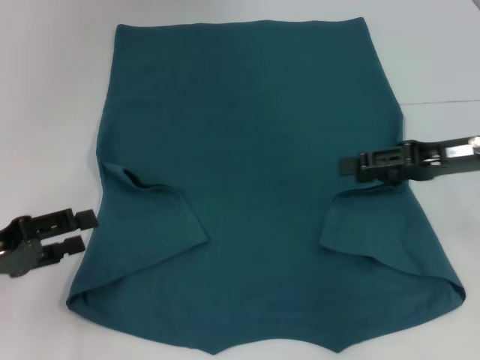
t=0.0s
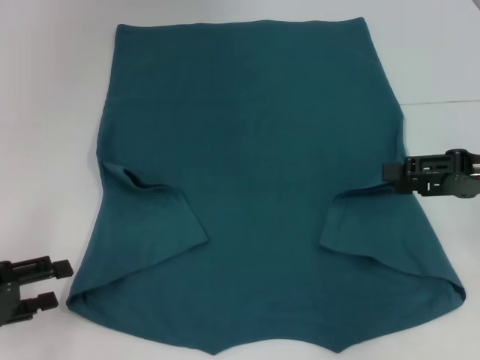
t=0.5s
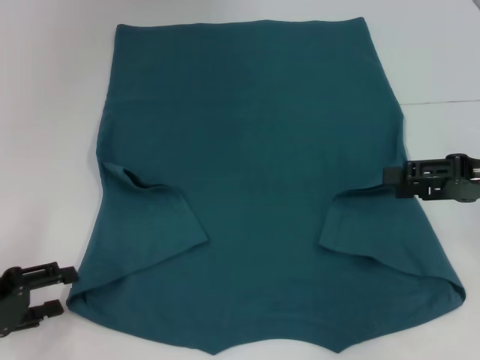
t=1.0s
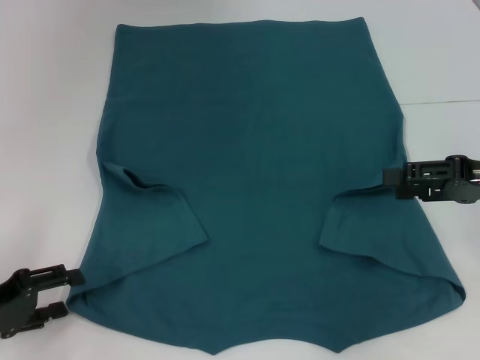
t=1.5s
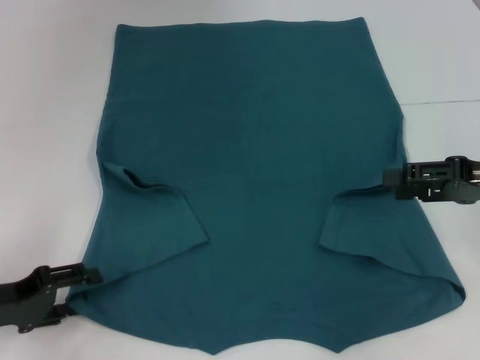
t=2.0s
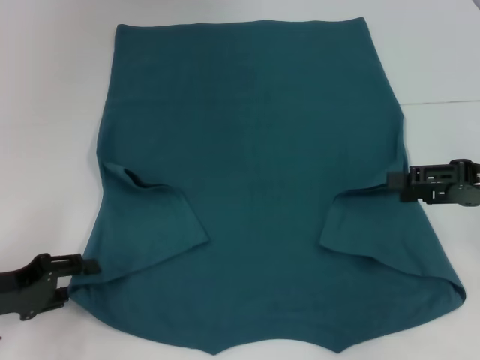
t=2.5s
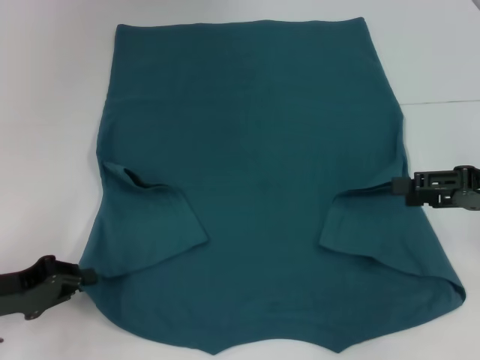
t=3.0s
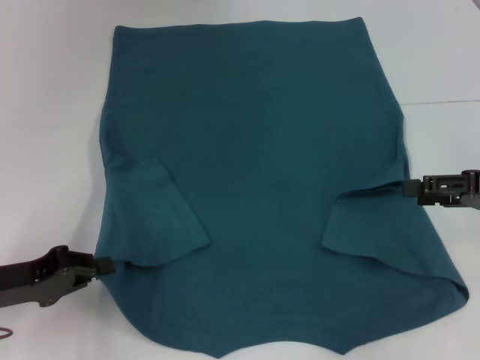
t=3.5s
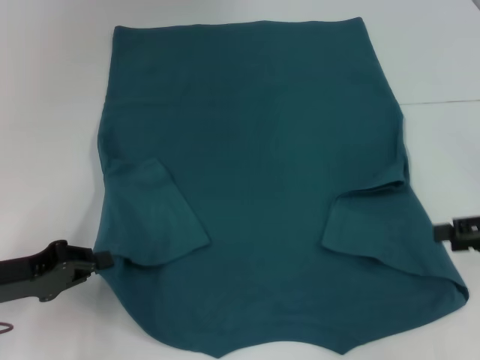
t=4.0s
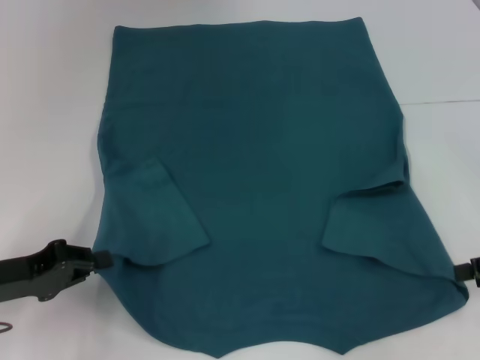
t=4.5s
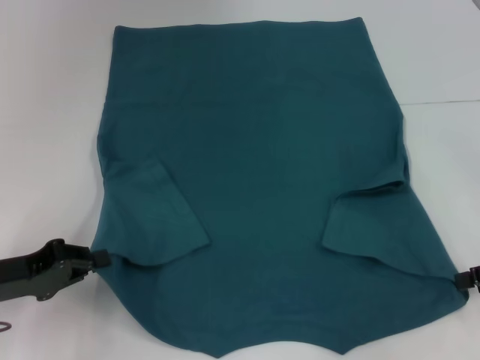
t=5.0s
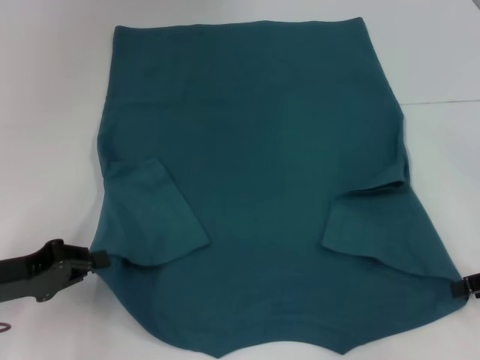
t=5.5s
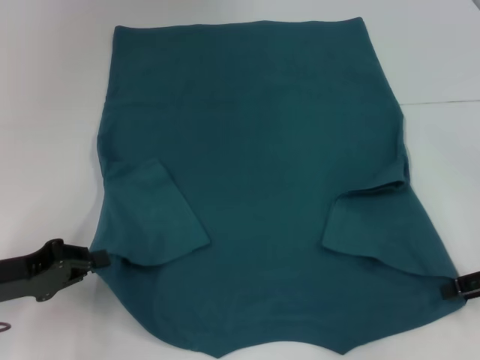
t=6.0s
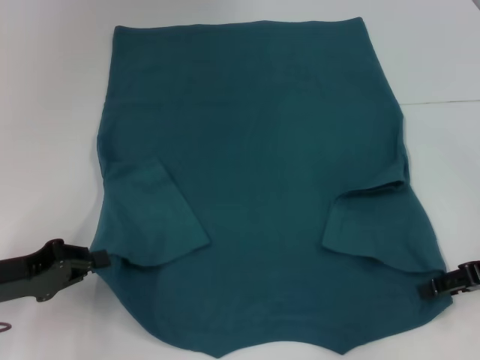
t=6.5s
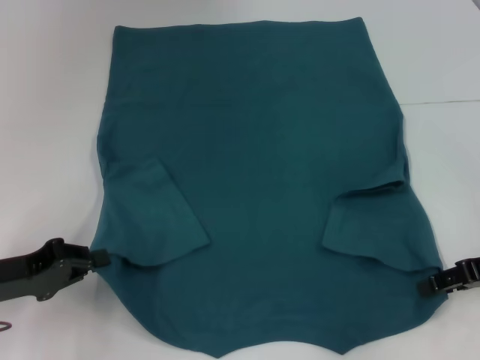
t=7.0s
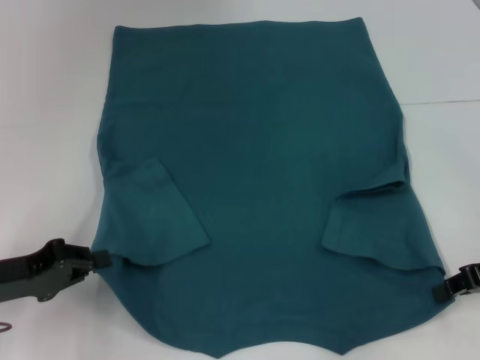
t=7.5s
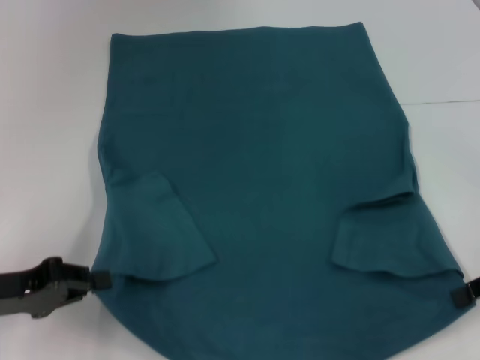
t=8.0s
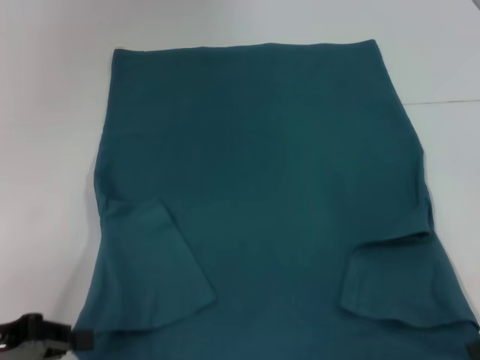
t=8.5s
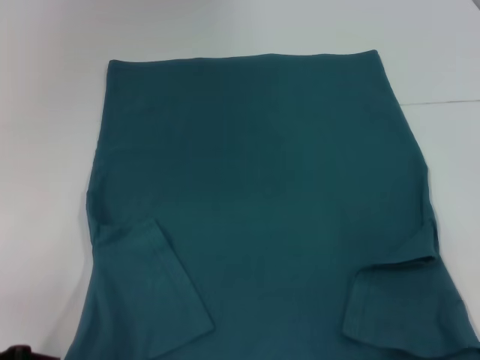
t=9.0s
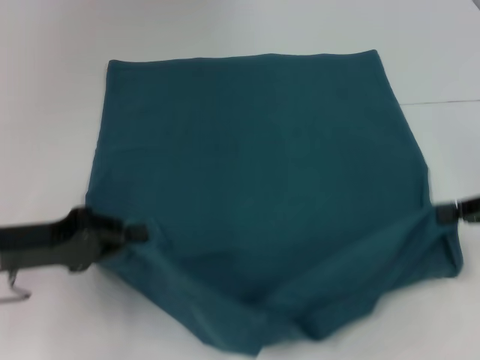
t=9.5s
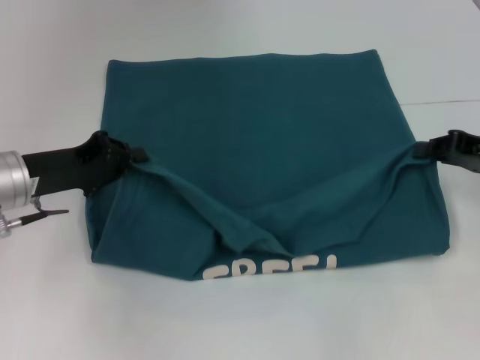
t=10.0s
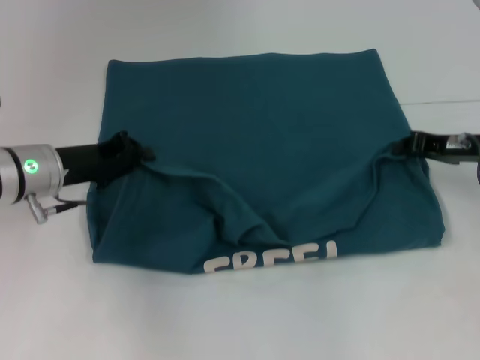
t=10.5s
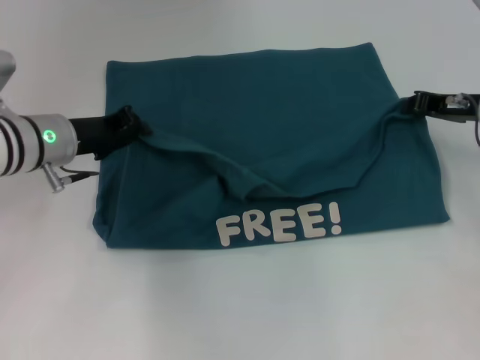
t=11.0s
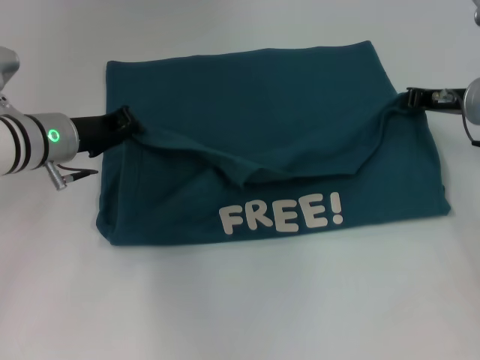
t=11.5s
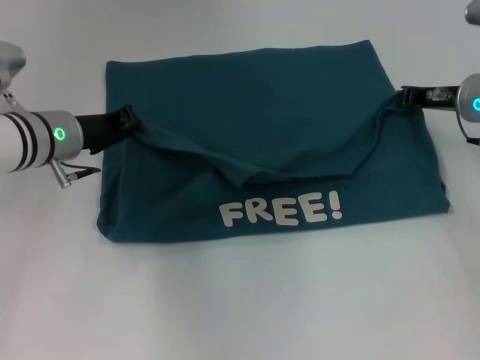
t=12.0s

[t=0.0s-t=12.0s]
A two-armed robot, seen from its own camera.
Step, t=0.0s to t=3.0s: Grab the bottom left corner with your left hand.
Step, t=3.5s to t=7.5s: Grab the bottom right corner with your right hand.
t=0.0s to t=2.0s: The right gripper changes place by some 5 cm.
t=2.0s to t=4.0s: The right gripper shifts by some 5 cm, while the left gripper closes.
t=4.0s to t=6.0s: The grippers make only small movements.
t=6.0s to t=8.0s: The right gripper closes its fingers.
t=8.0s to t=10.0s: The right gripper moves forward, roughly 5 cm, while the left gripper heads forward and to the right, covering some 10 cm.
t=10.0s to t=12.0s: The left gripper heads forward and to the right, covering roughly 10 cm. Meanwhile the right gripper heads forward and to the left, covering roughly 10 cm.

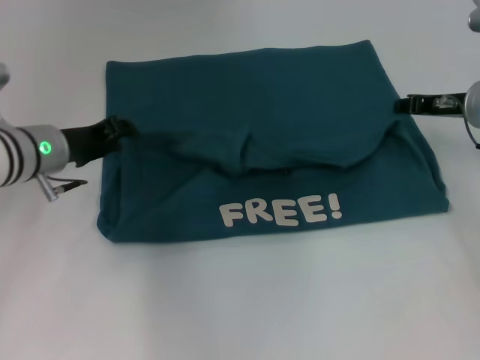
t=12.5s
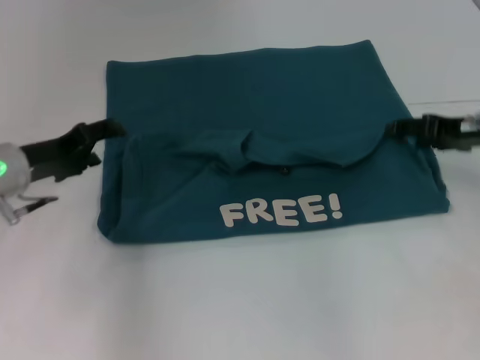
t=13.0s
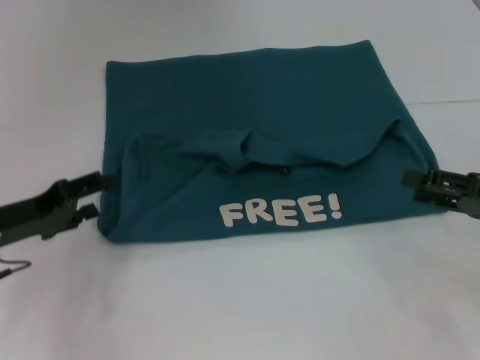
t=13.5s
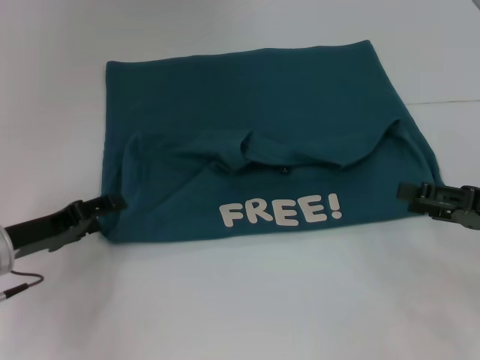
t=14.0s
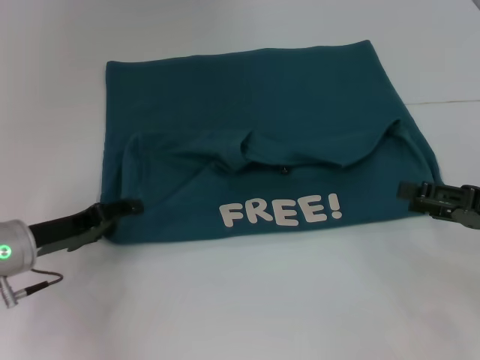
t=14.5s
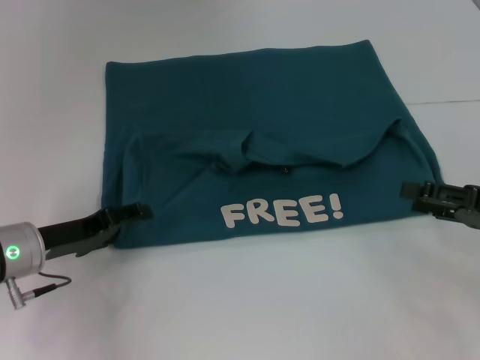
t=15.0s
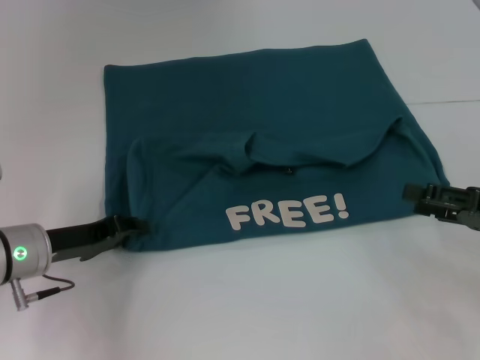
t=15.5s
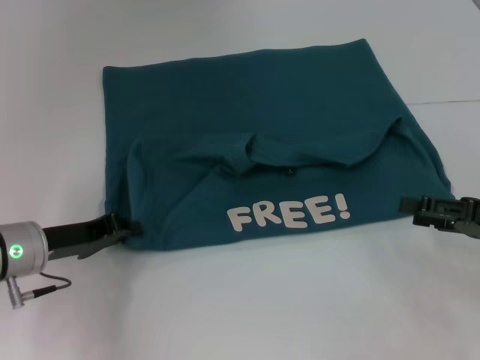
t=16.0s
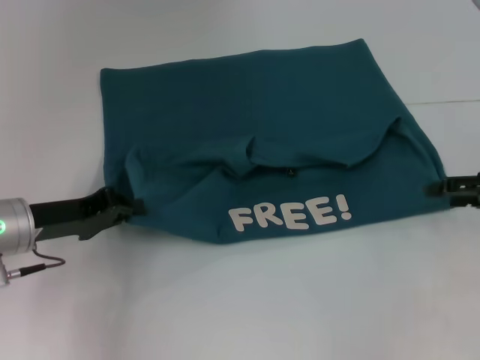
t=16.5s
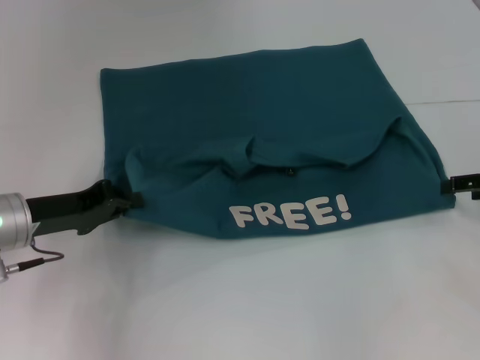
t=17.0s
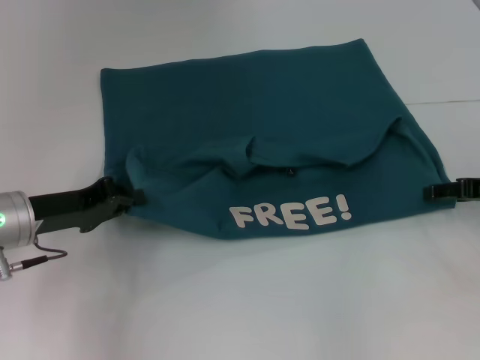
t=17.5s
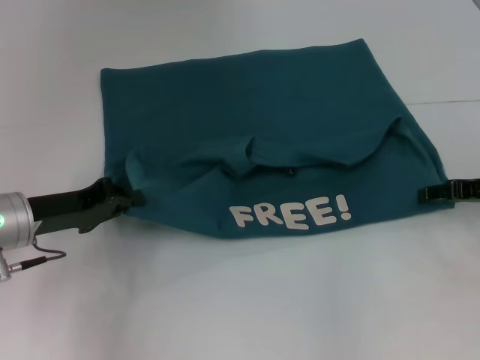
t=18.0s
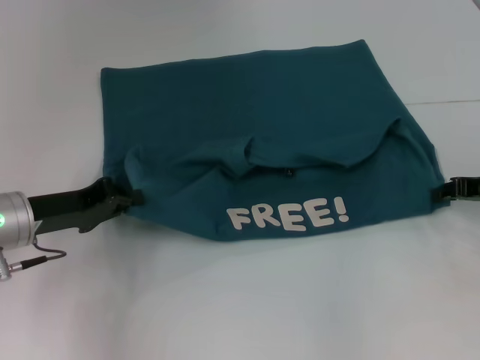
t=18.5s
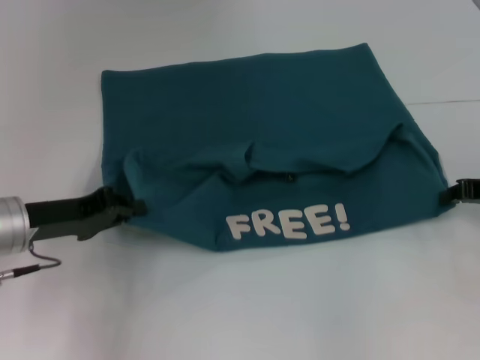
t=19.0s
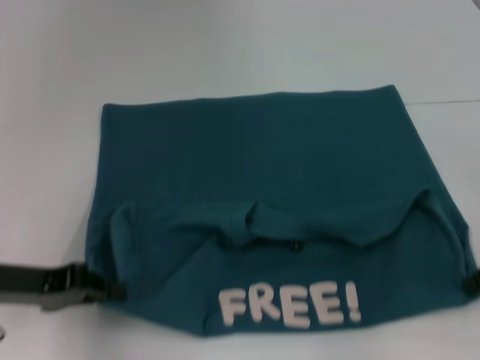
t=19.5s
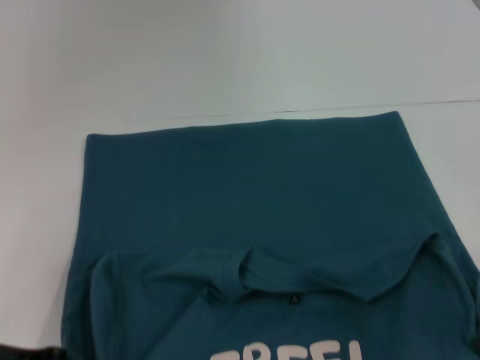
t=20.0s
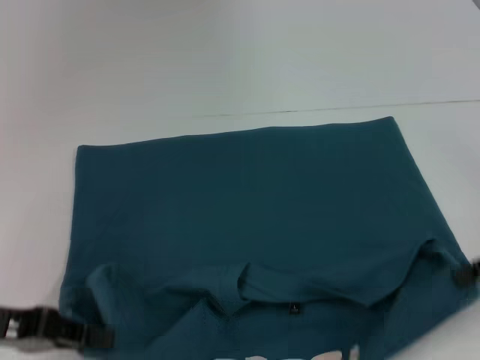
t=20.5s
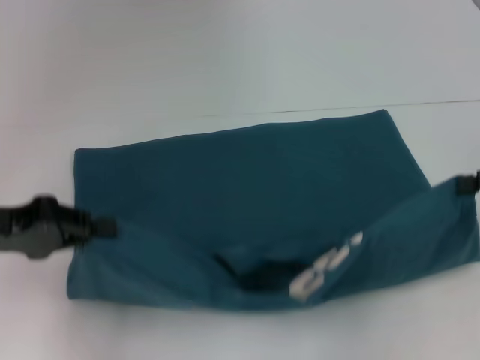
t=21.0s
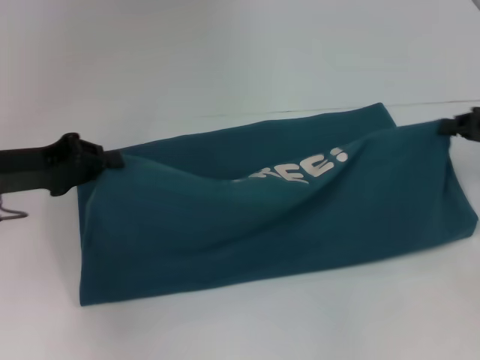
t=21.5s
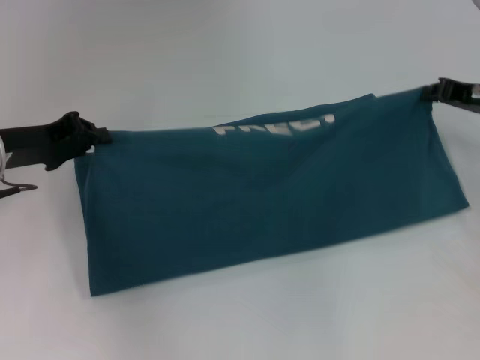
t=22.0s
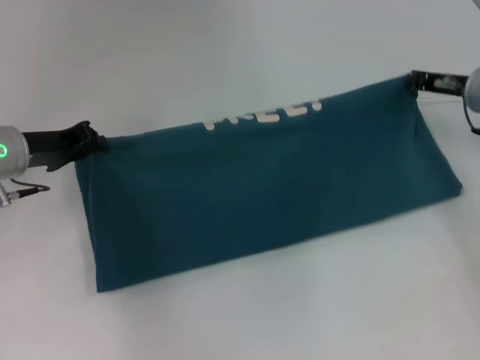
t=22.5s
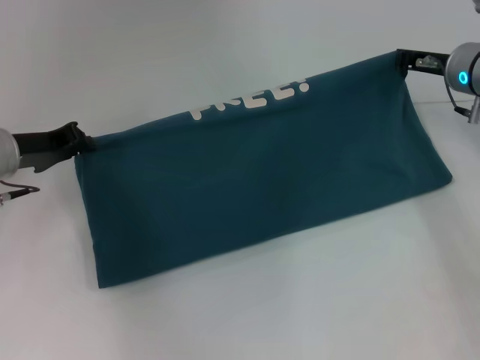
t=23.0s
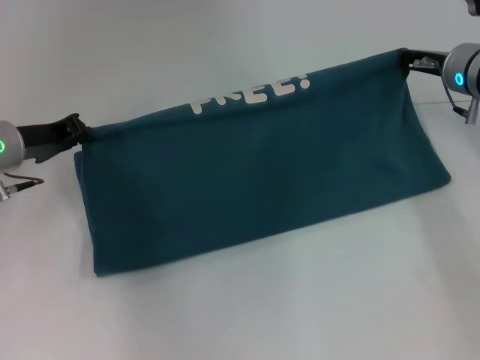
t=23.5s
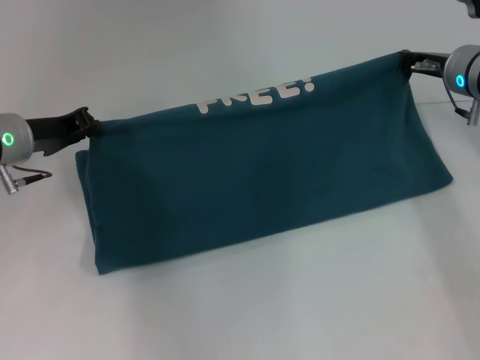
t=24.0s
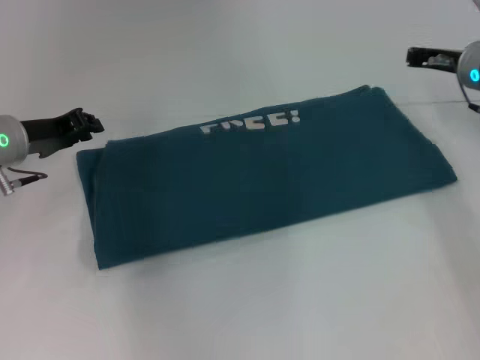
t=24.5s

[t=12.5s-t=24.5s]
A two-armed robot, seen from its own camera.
Step, t=13.0s to t=20.0s: Pull the clothes with your left hand.
Step, t=13.0s to t=20.0s: Pull the clothes with your right hand.
t=12.5s to t=14.5s: The right gripper heads backward, covering about 15 cm, and opens its fingers; the left gripper goes approximately 10 cm backward and downward, and opens up.
t=14.5s to t=16.5s: The left gripper closes up; the right gripper changes place by some 5 cm.
t=16.5s to t=18.5s: The right gripper shifts by approximately 5 cm, and closes its fingers.
t=18.5s to t=20.5s: The right gripper travels backward and upward by approximately 10 cm, and closes its fingers. The left gripper moves backward, some 10 cm.
t=20.5s to t=22.5s: The right gripper is displaced forward and to the left by roughly 15 cm. Meanwhile the left gripper heads forward, covering some 15 cm.
t=22.5s to t=24.5s: The grippers move only a little.

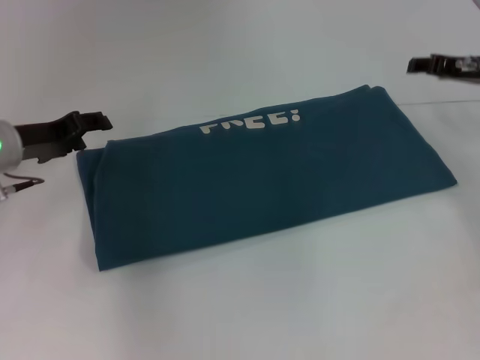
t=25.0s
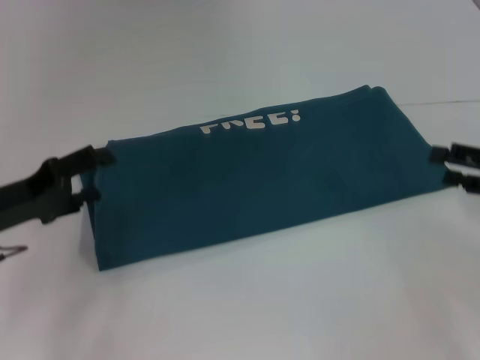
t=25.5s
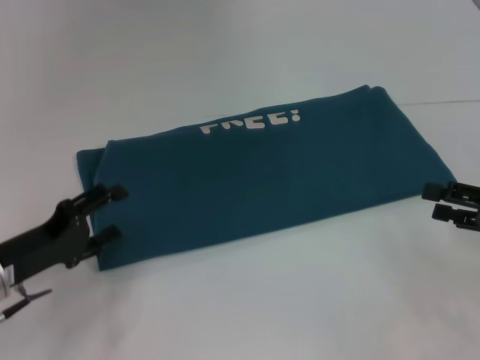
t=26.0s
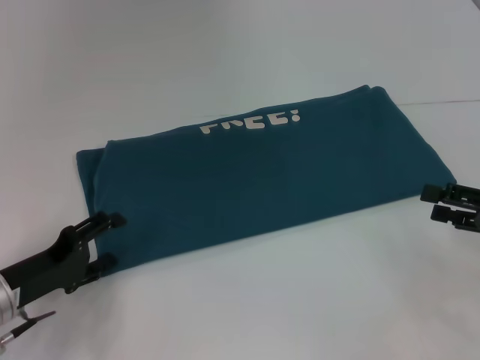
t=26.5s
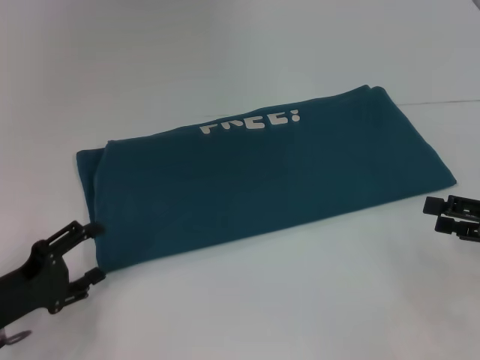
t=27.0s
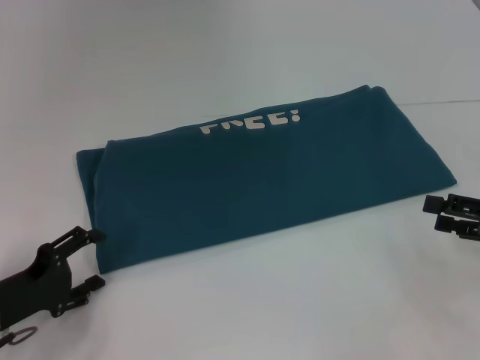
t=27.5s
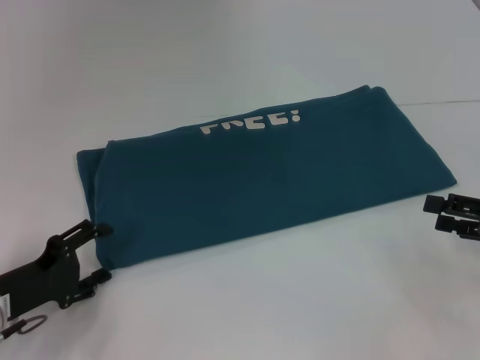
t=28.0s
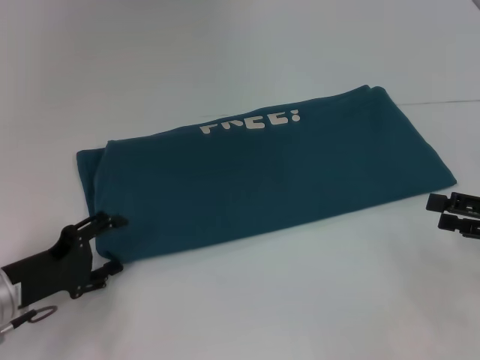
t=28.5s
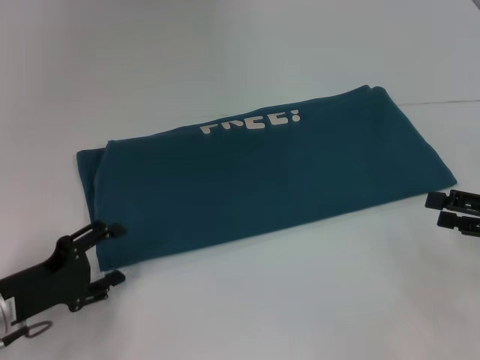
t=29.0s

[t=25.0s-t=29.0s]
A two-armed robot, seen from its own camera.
t=25.0s to t=27.0s: The left gripper travels backward and downward by roughly 20 cm, and opens its fingers. The right gripper is displaced backward by approximately 20 cm, and opens its fingers.
t=27.0s to t=29.0s: The grippers make only small movements.
